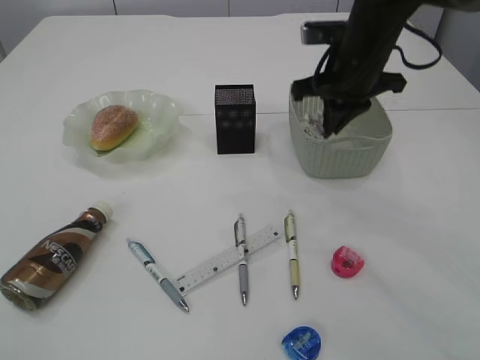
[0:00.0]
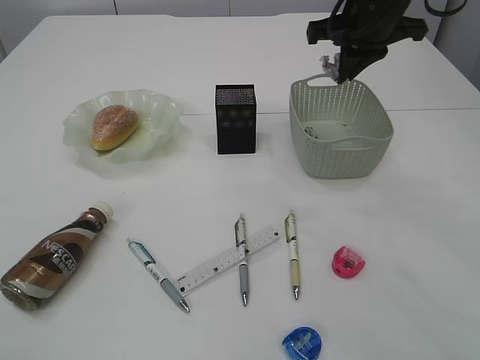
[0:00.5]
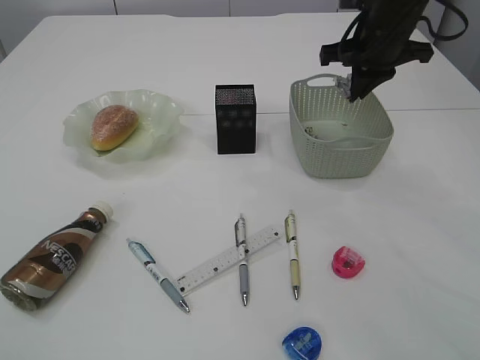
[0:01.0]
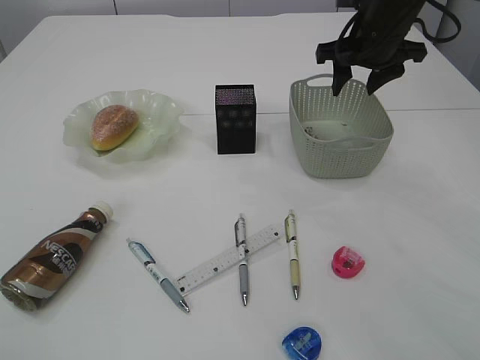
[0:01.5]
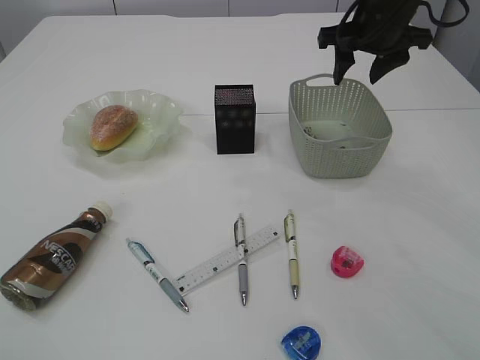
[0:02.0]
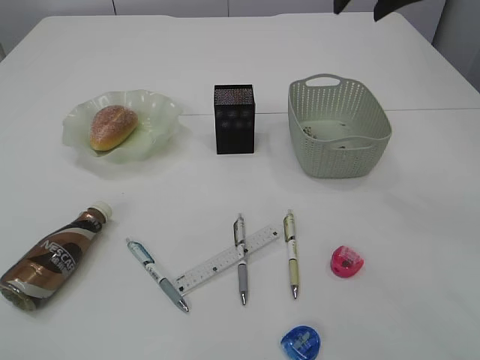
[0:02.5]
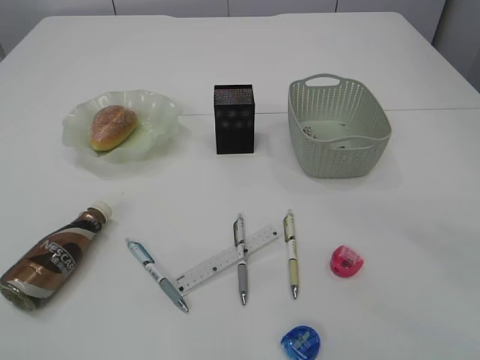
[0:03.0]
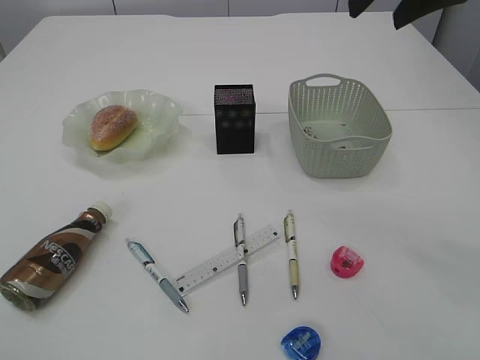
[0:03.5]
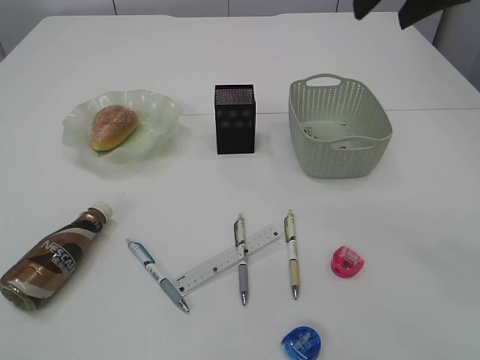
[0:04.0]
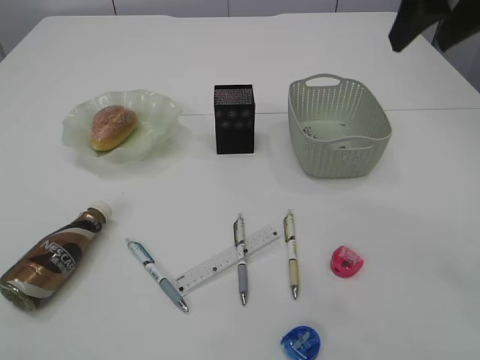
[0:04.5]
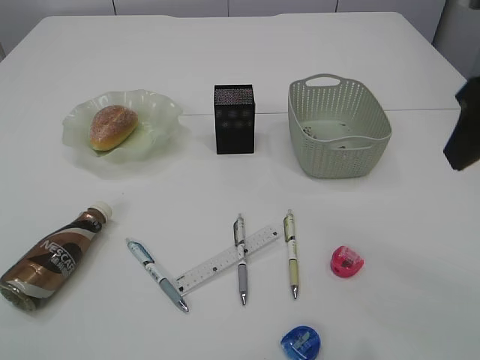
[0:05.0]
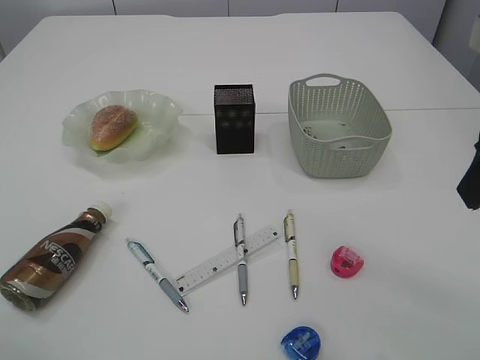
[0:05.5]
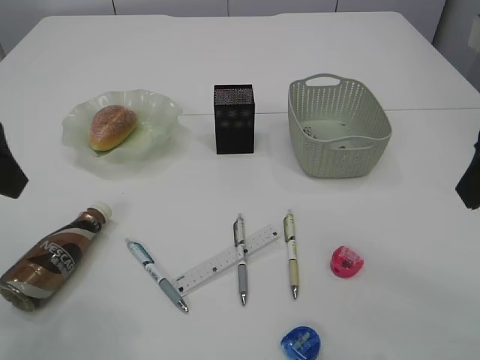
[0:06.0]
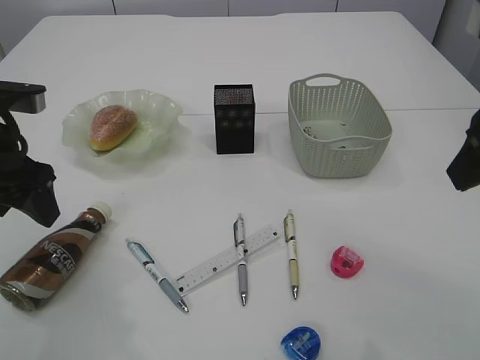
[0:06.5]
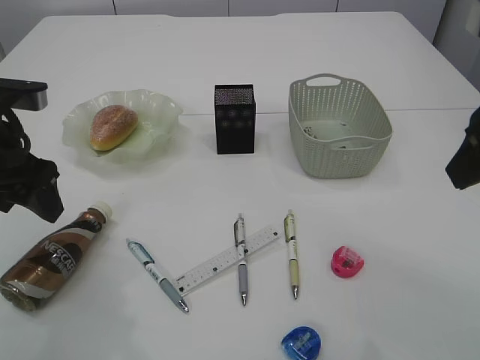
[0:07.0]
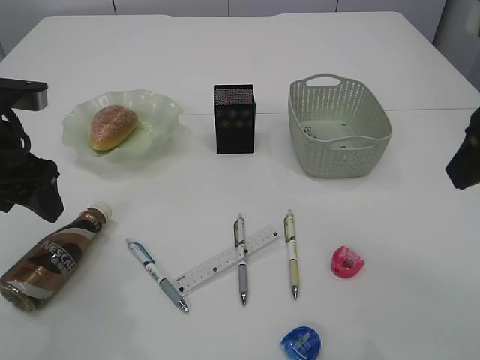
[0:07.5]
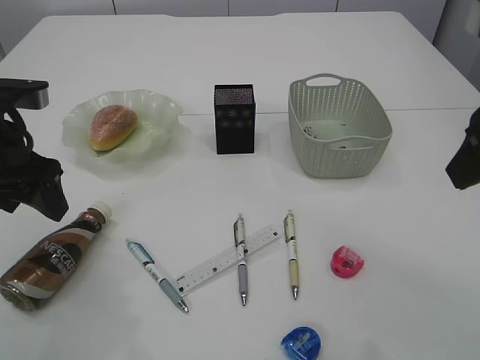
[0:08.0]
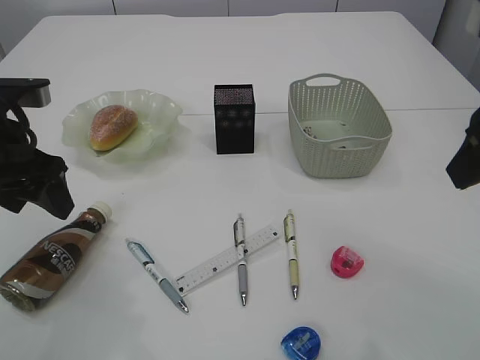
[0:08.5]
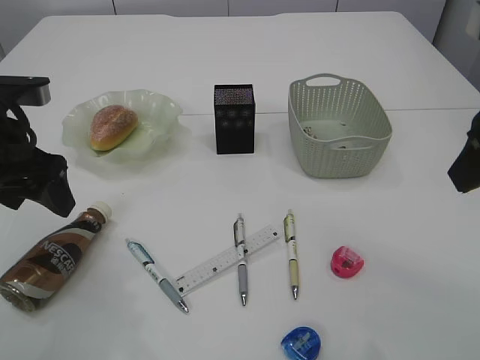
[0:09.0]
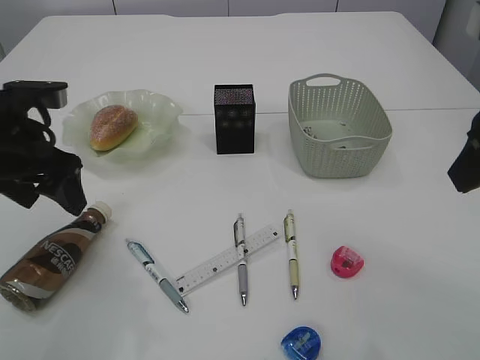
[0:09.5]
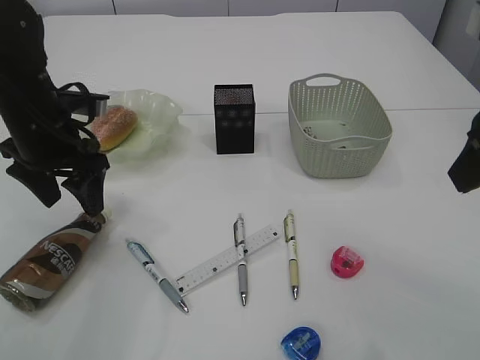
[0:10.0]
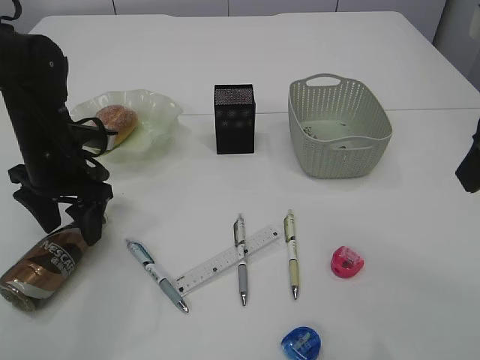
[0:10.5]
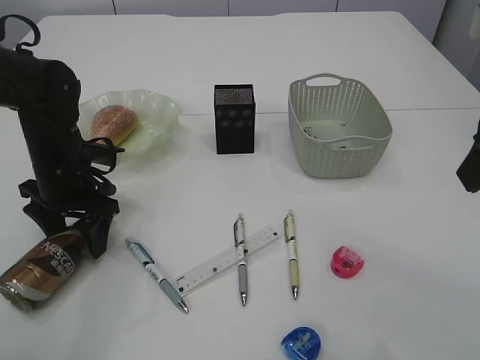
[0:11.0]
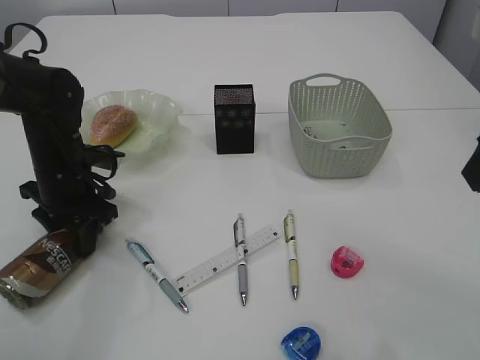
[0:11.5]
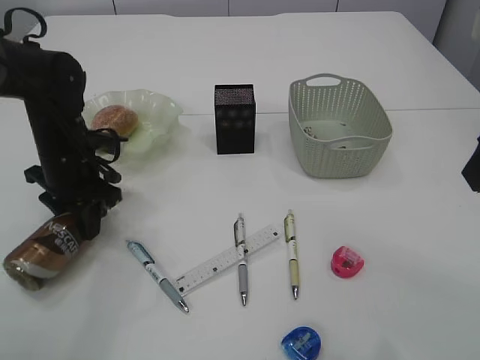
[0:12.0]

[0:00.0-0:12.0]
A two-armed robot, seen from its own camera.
Step, 0:00.0 to 0:01.5: Place the waste paper in the basket.
0:00.0 to 0:02.0: The right gripper ends up about 5 cm from where it was, and opens its fingers.
0:02.0 to 0:04.0: The right gripper heads backward and upward, covering roughly 15 cm.
0:04.0 to 0:06.0: The right gripper moves backward and downward, some 15 cm. Meanwhile the left gripper goes roughly 20 cm forward.
0:06.0 to 0:08.0: The left gripper shifts roughly 10 cm downward and forward.
0:08.0 to 0:10.0: The left gripper travels forward by approximately 5 cm.
0:10.0 to 0:12.0: The left gripper shifts some 5 cm downward, and closes.

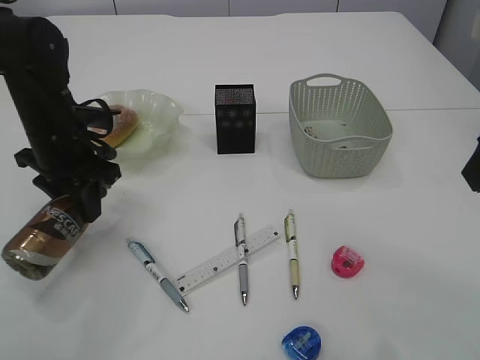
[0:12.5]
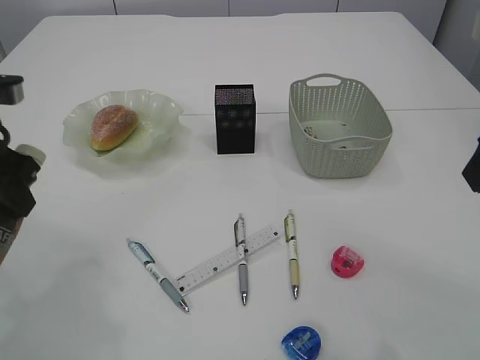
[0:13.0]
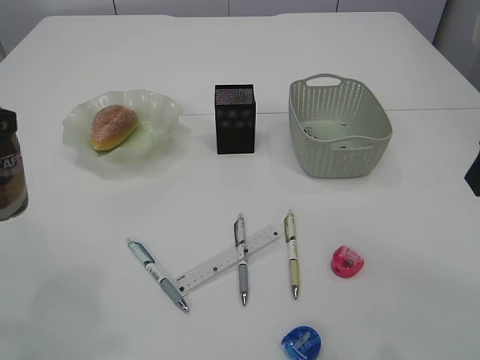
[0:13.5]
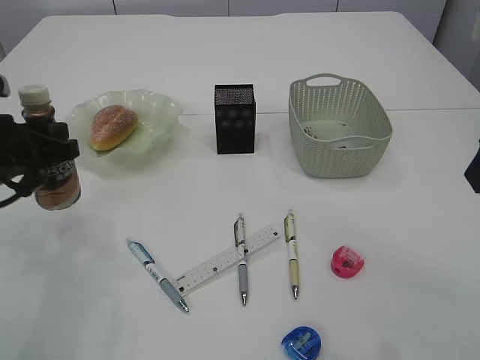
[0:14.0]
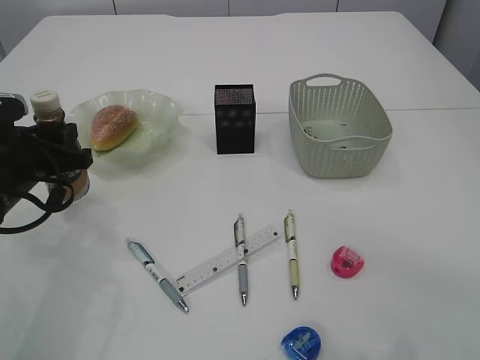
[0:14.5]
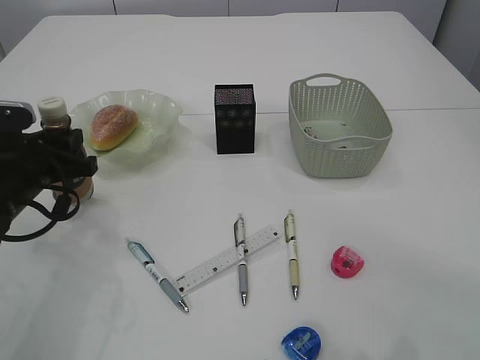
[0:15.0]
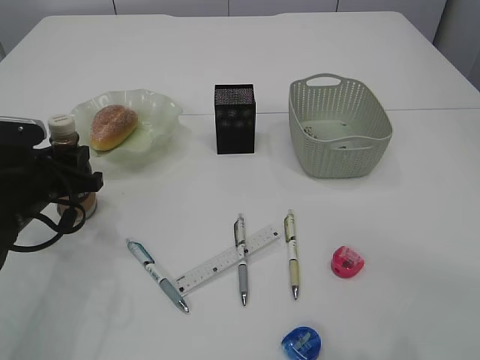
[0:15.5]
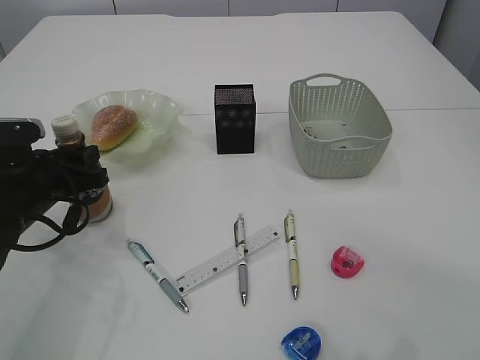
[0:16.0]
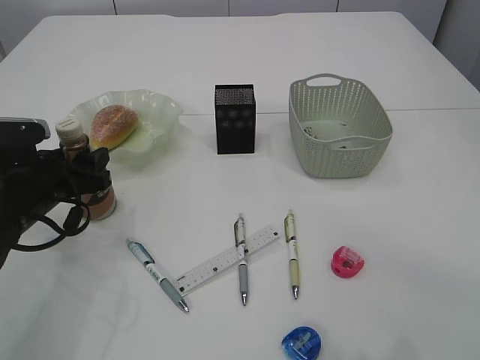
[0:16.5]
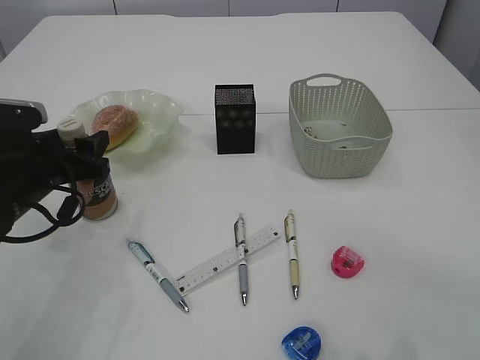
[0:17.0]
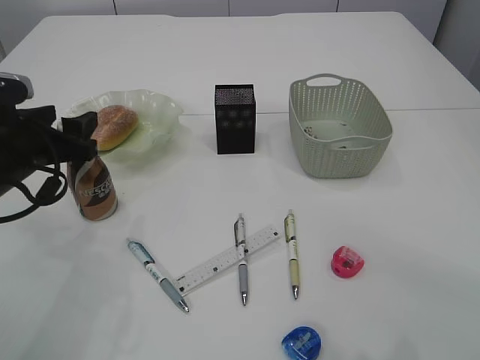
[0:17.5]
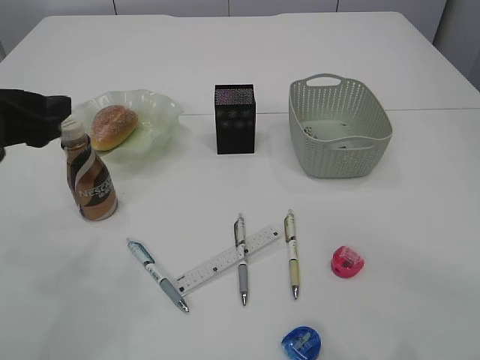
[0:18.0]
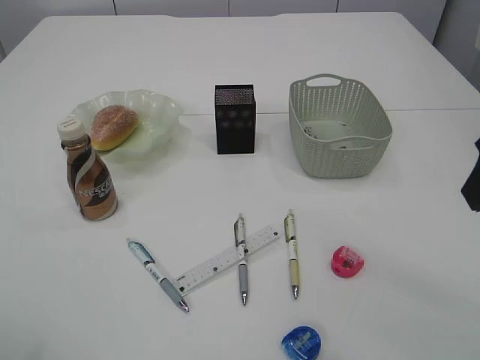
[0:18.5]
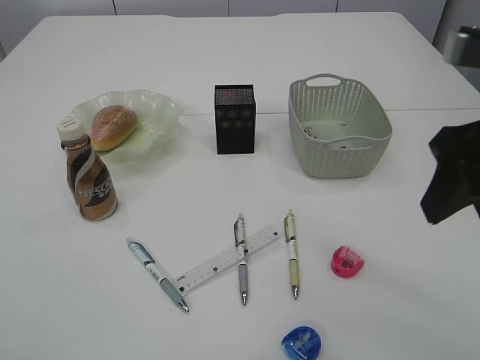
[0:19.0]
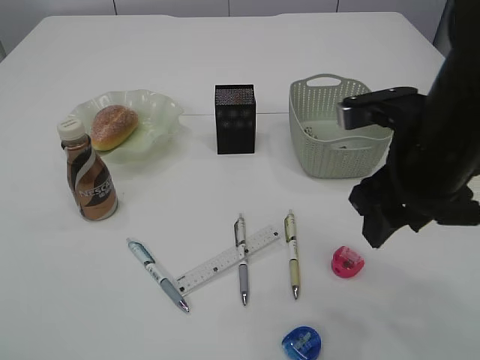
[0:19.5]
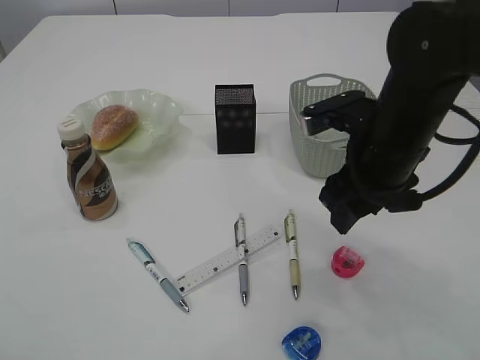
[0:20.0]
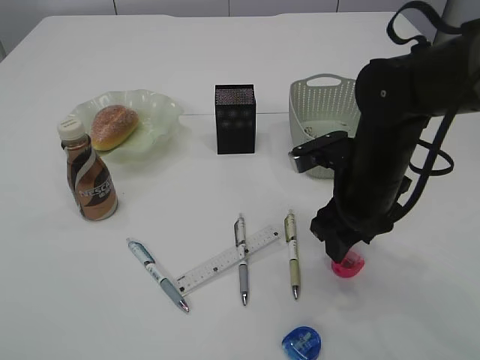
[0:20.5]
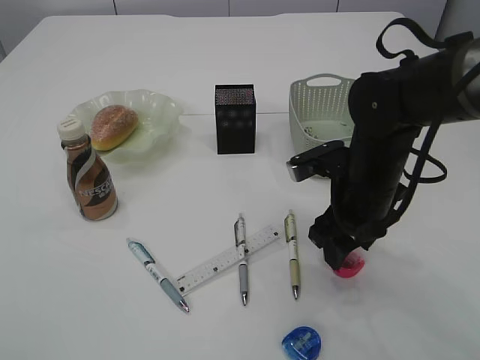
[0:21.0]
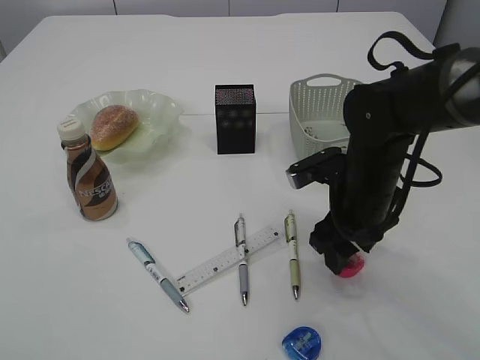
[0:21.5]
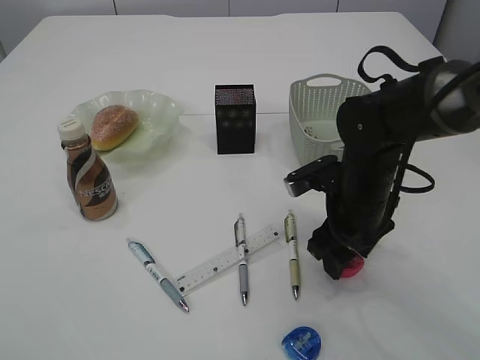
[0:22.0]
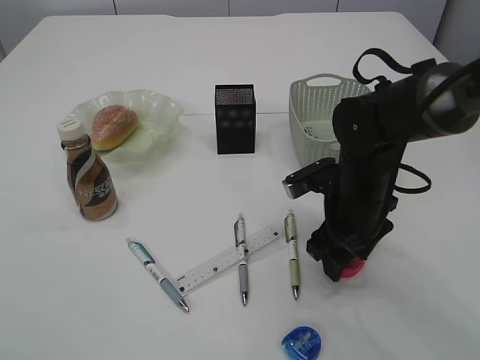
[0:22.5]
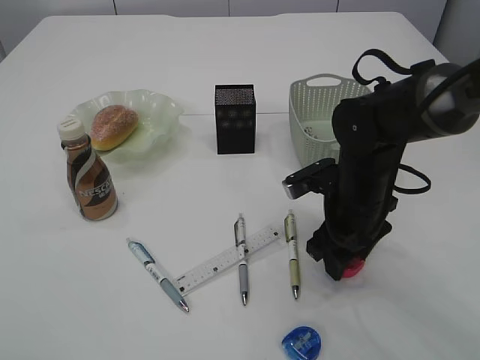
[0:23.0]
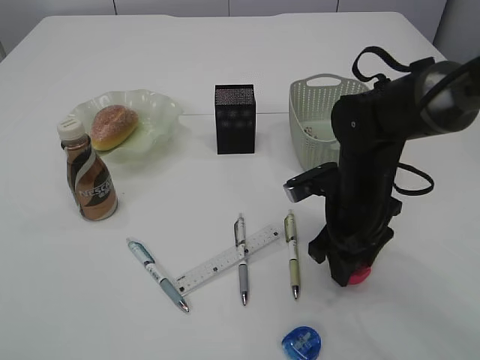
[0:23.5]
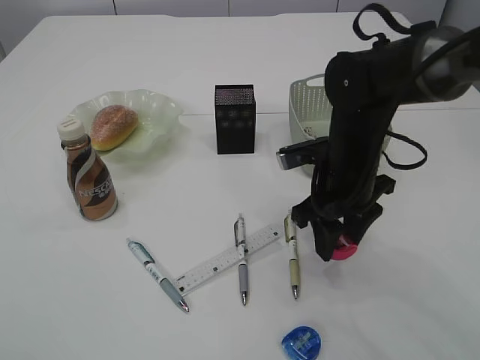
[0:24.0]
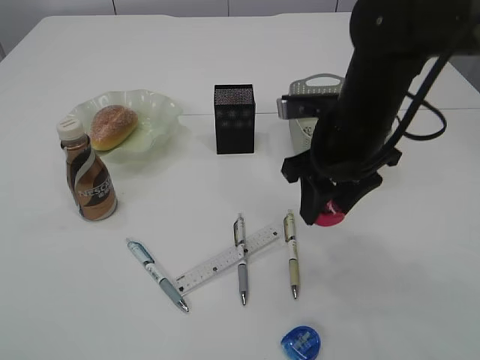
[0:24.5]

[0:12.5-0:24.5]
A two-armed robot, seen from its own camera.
Step, 0:13.0 to 0:17.5: Place the bottle.
Step, 0:18.0 to 0:24.0: Pick up the red pencil sharpener.
0:12.5 to 0:14.5: The left gripper goes roughly 5 cm backward.
0:14.5 to 0:16.5: The left gripper opens its fingers.
0:16.5 to 0:18.5: The left gripper goes roughly 25 cm upward and backward.
0:18.5 to 0:20.5: The right gripper heads downward, forward and to the left, covering approximately 20 cm. The left gripper moves roughly 5 cm.
0:20.5 to 0:22.5: The right gripper changes place by approximately 5 cm.
0:22.5 to 0:24.5: The right gripper moves upward, about 10 cm.

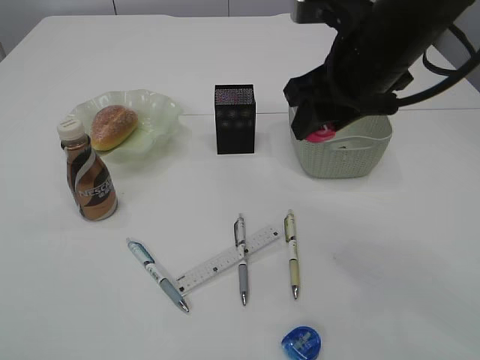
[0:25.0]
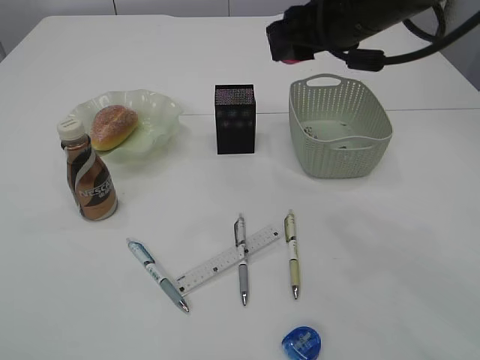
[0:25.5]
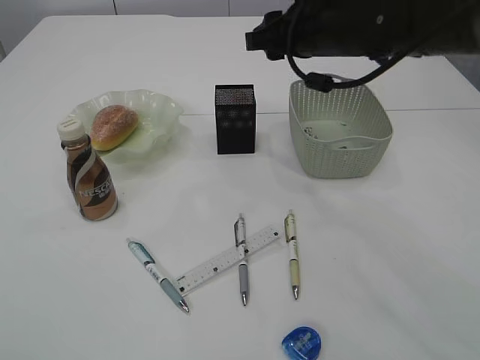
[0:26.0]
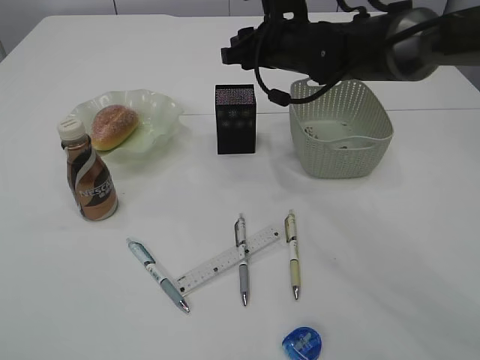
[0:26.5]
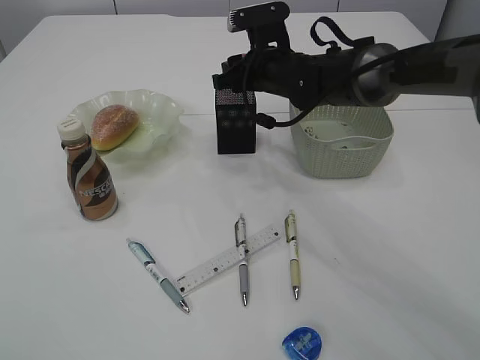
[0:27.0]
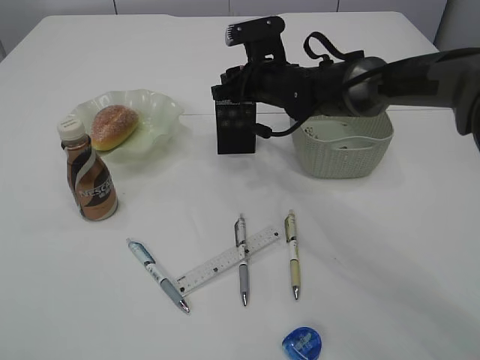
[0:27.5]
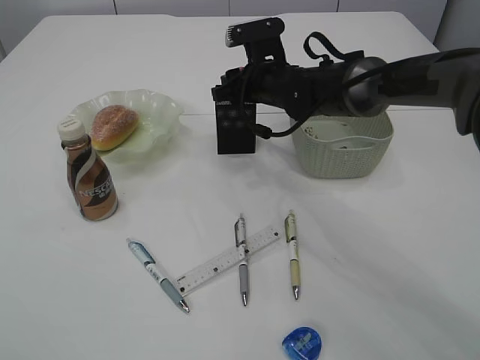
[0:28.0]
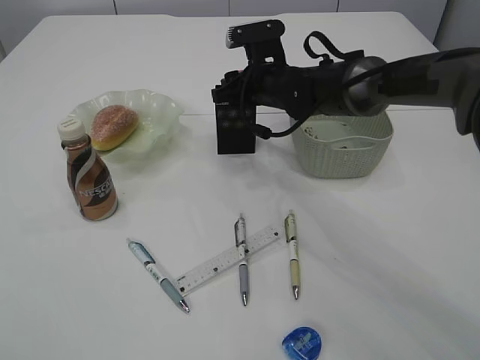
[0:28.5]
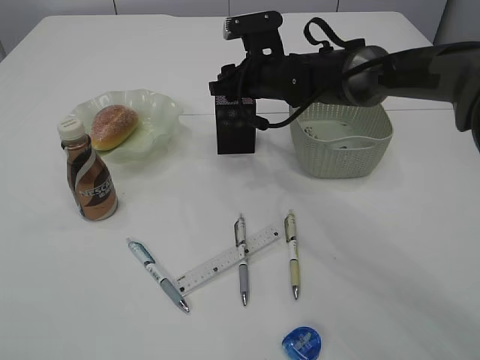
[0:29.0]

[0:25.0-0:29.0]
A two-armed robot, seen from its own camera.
0:25.0 to 0:27.0: The right gripper is displaced forward and downward by approximately 20 cm.
0:27.0 to 0:29.0: There are only small adjustments of the grippers.
